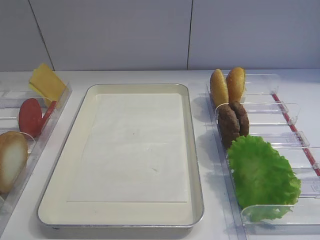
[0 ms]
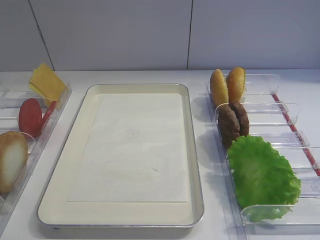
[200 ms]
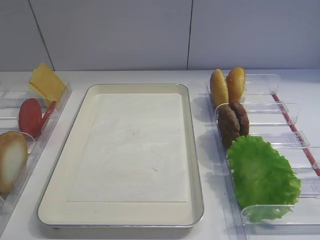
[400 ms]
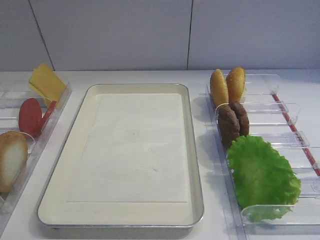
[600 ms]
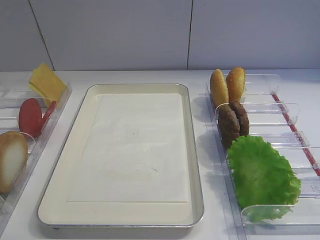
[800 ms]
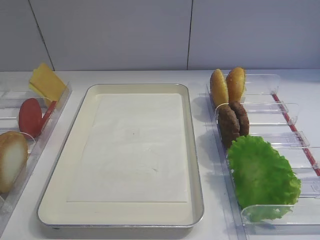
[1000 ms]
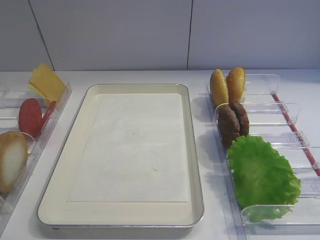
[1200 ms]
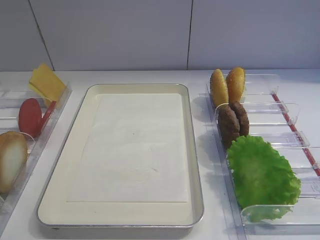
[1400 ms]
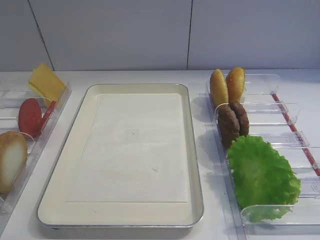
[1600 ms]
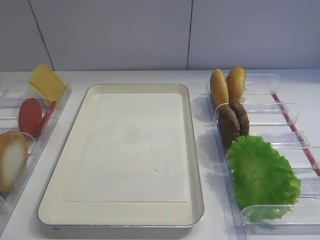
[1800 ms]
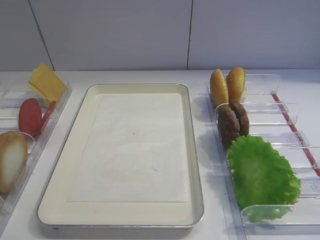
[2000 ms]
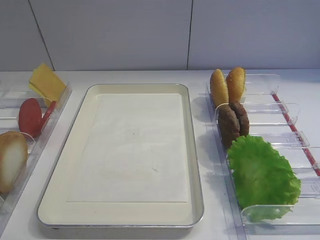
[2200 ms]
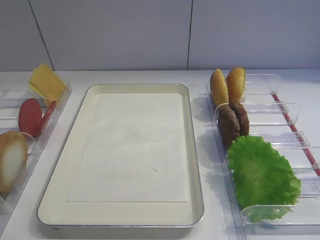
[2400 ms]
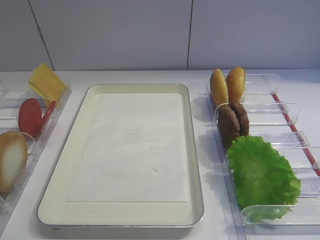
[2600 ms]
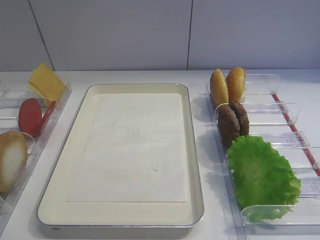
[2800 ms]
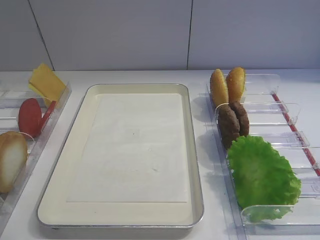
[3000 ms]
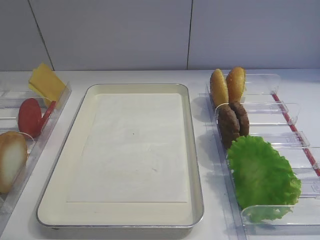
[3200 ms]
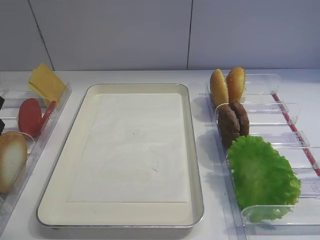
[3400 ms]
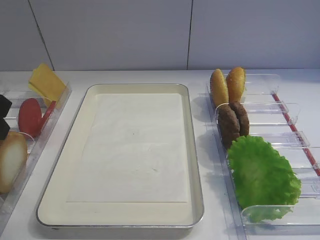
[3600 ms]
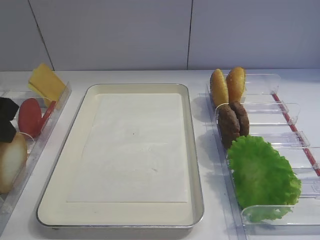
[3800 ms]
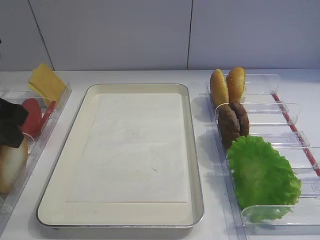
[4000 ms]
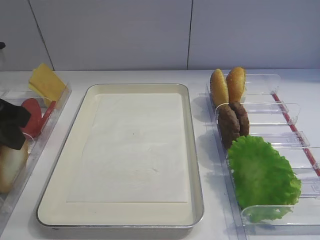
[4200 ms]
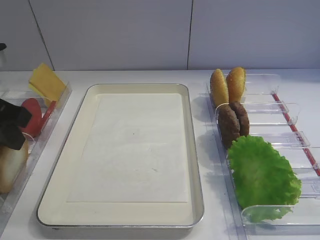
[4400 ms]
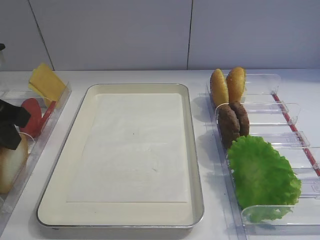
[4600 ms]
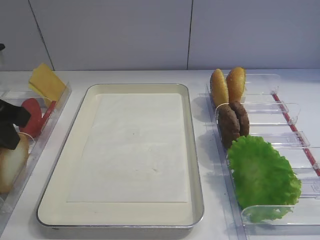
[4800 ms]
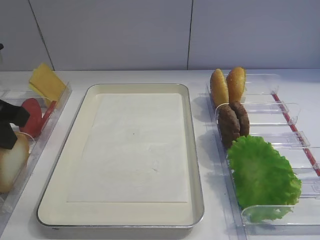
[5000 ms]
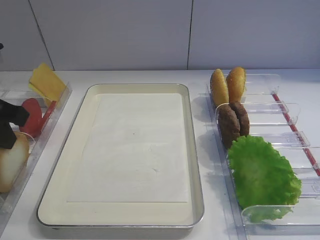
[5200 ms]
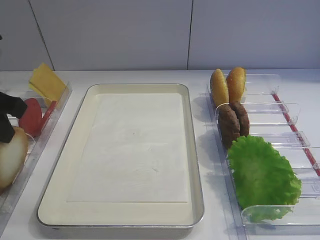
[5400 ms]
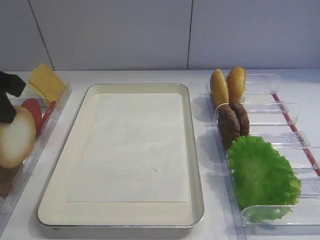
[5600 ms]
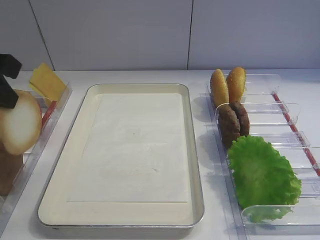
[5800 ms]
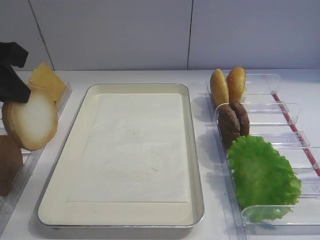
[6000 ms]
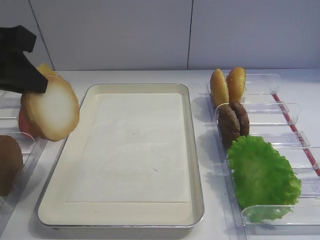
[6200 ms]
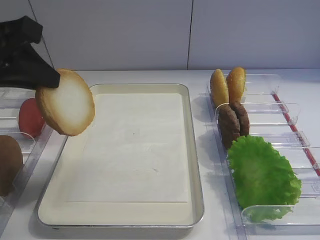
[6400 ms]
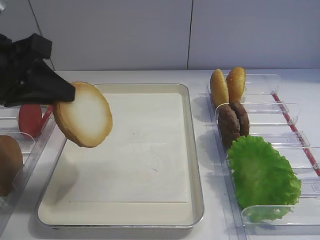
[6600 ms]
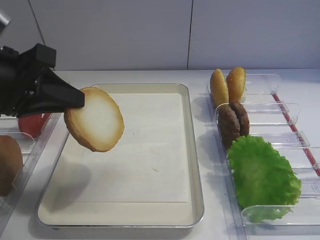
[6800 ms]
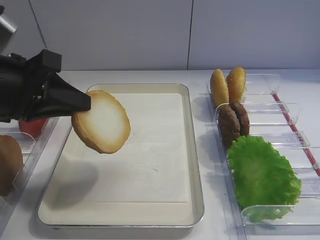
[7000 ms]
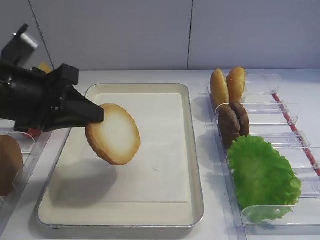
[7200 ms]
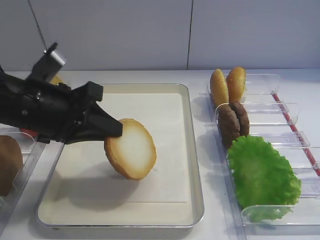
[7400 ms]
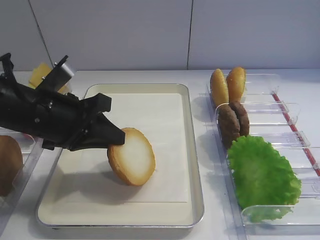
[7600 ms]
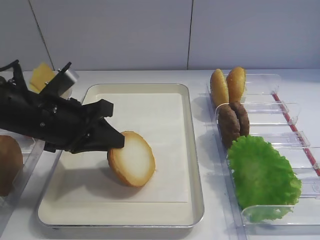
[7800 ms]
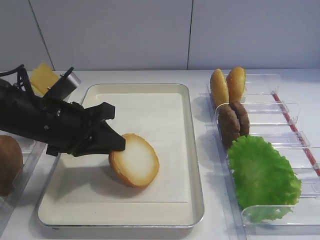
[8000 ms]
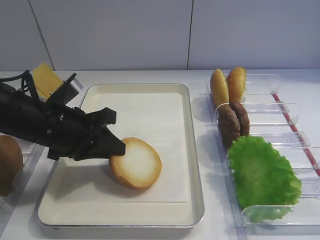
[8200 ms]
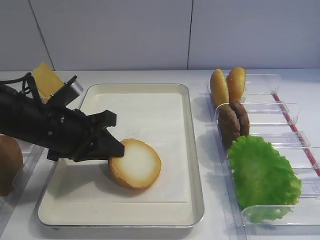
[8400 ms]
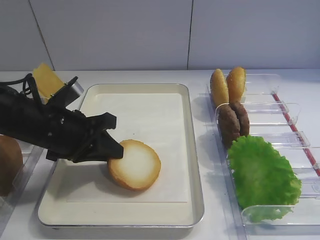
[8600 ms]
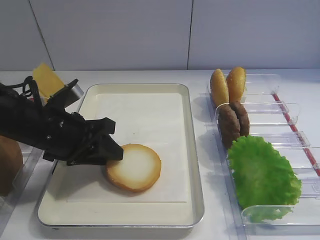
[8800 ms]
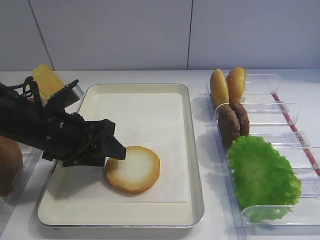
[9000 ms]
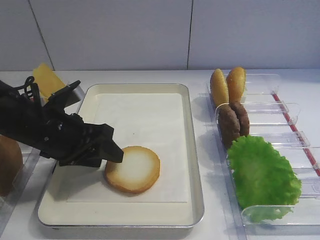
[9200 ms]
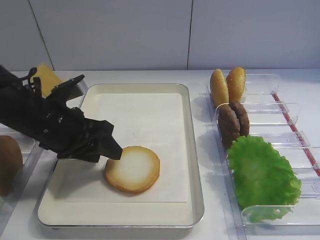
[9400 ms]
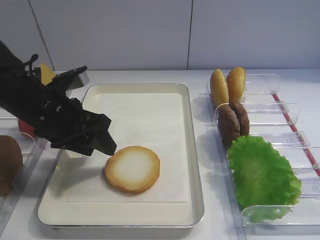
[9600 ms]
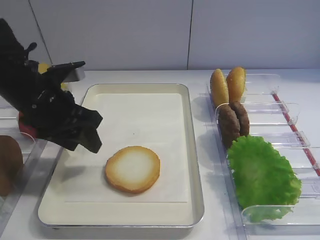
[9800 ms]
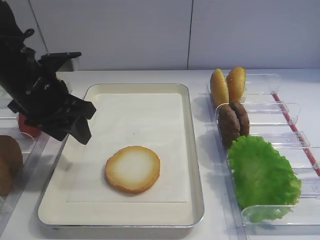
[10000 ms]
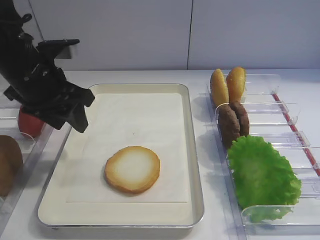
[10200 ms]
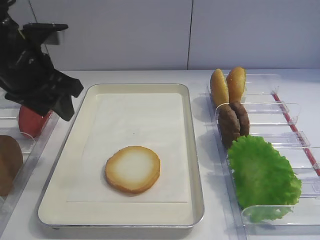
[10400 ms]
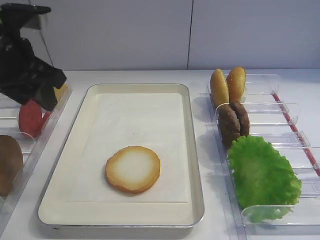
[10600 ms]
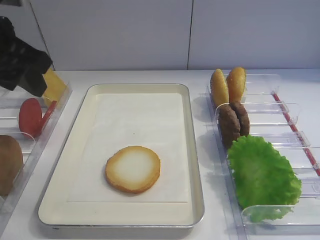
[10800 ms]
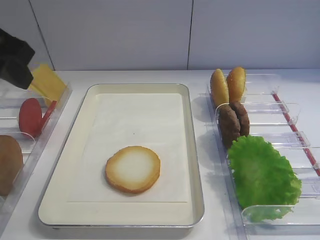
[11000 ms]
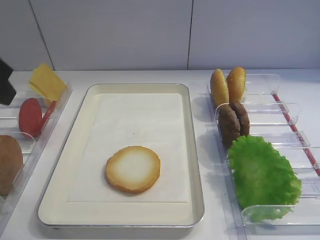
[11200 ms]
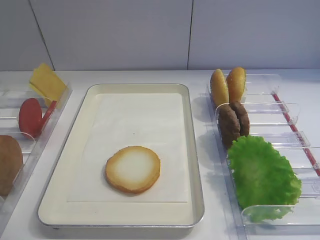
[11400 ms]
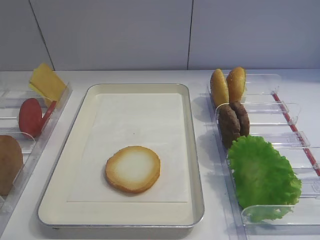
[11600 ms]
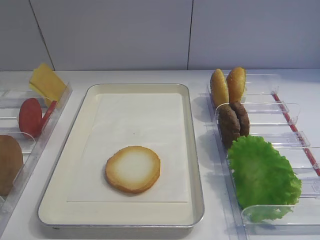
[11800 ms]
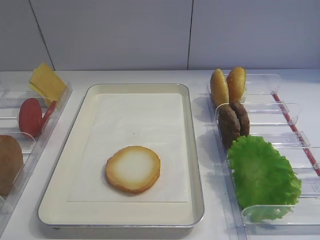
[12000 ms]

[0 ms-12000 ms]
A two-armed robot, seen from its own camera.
Step, 0 ms to 5600 ms: Pick up the bread slice with the left gripper.
Step, 5800 ms to 10200 ms: Place the bread slice on the tray with the left gripper.
0 ms to 1600 ms: The two grippers keep their place.
3000 ms to 4400 ms: The left gripper changes place by some 5 cm.
4400 ms to 6000 ms: The left gripper travels upward by some 5 cm.
6000 ms to 7600 ms: The left gripper goes approximately 15 cm downward and to the right.
7600 ms to 9000 ms: The left gripper opens its fingers.
9000 ms to 10400 ms: The left gripper is displaced upward by about 15 cm.
10400 ms to 12000 ms: The left gripper moves backward, roughly 25 cm.

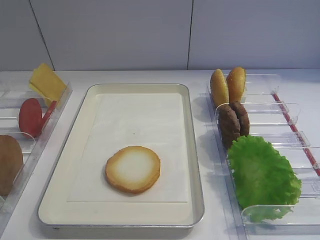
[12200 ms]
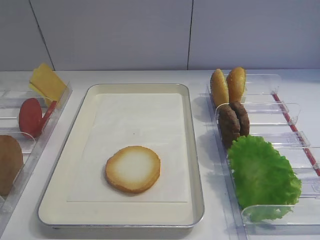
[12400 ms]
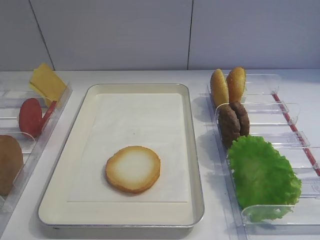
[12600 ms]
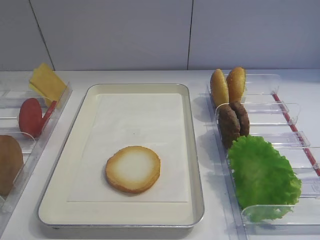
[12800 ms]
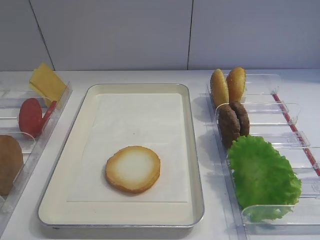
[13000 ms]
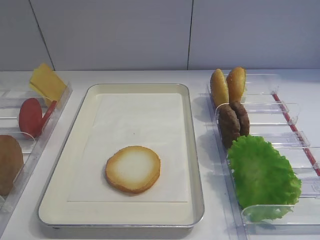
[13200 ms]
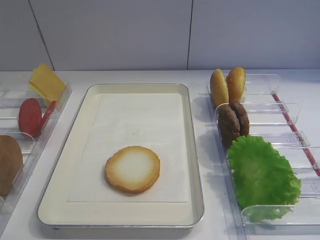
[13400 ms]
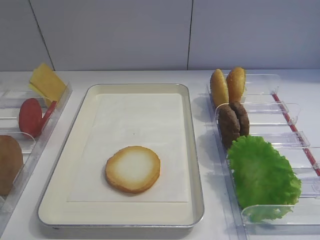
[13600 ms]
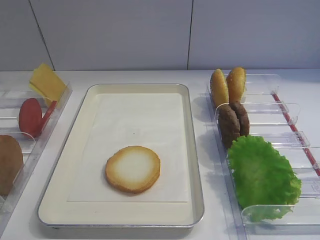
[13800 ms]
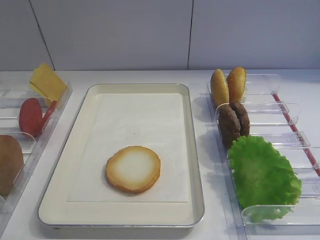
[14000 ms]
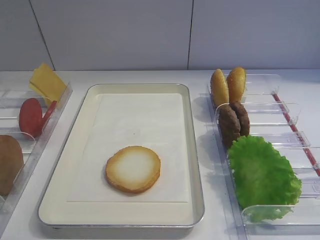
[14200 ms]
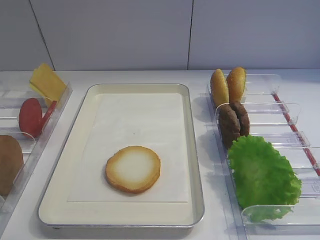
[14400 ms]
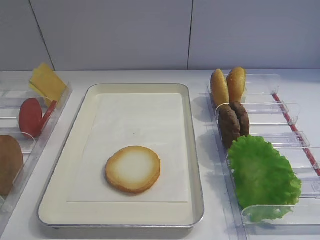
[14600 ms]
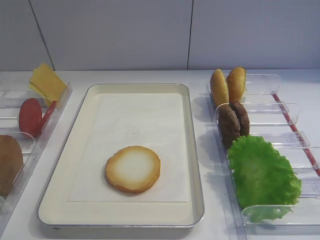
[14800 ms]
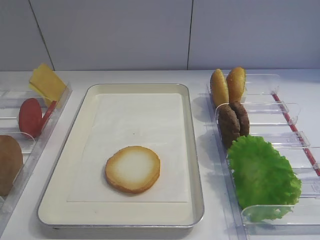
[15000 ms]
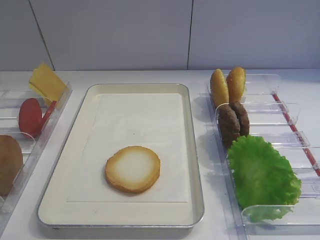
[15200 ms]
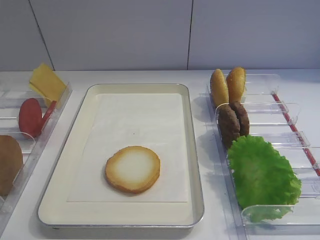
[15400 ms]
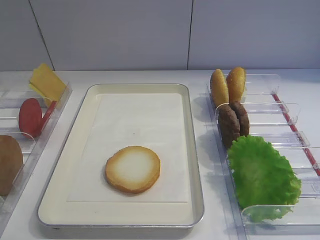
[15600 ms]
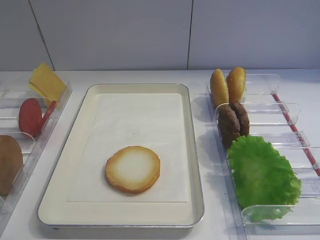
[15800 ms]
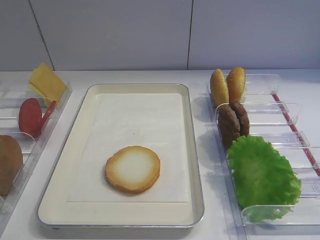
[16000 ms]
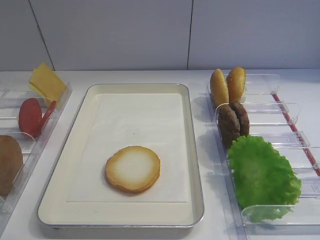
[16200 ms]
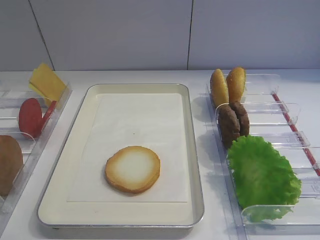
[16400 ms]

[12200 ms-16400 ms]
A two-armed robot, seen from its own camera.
15000 ms to 16400 ms: Both grippers stay put.

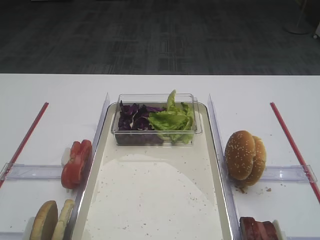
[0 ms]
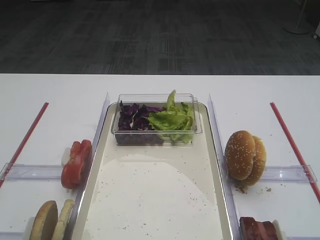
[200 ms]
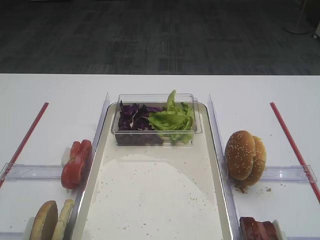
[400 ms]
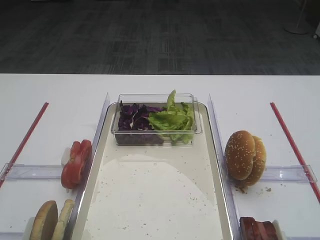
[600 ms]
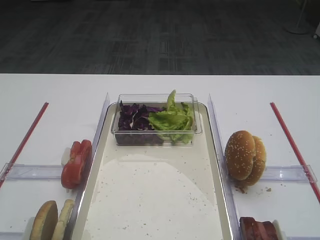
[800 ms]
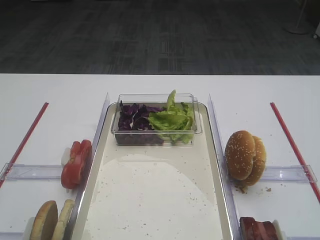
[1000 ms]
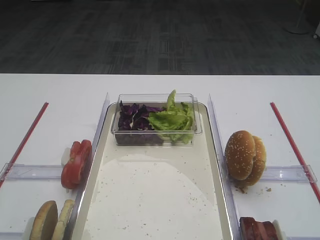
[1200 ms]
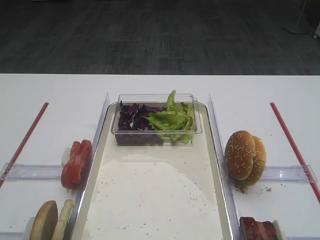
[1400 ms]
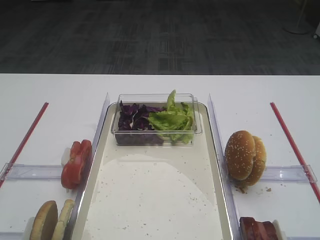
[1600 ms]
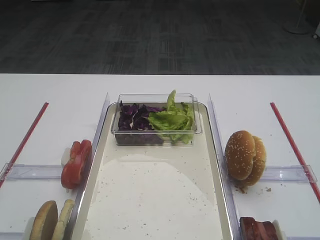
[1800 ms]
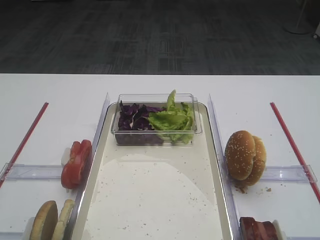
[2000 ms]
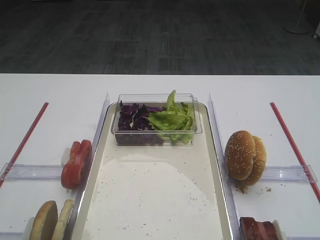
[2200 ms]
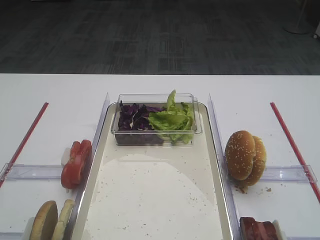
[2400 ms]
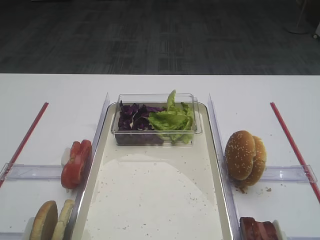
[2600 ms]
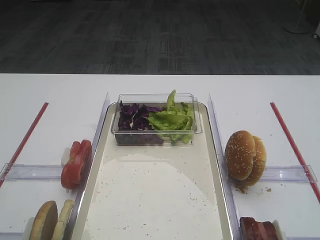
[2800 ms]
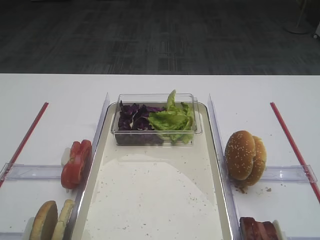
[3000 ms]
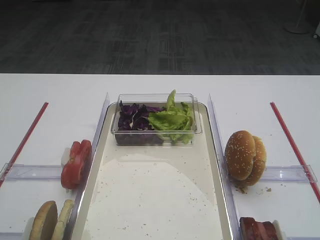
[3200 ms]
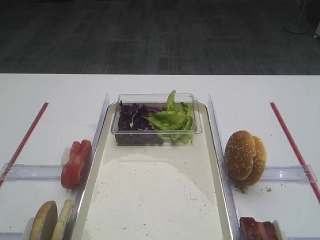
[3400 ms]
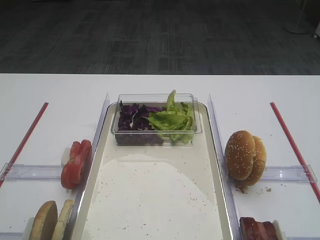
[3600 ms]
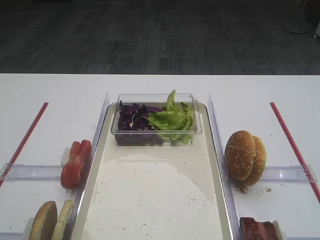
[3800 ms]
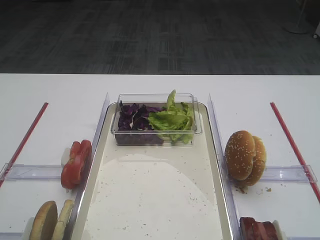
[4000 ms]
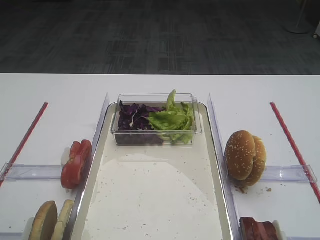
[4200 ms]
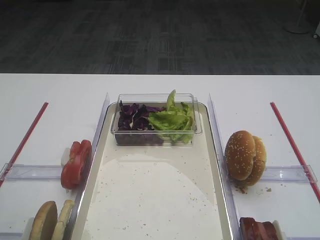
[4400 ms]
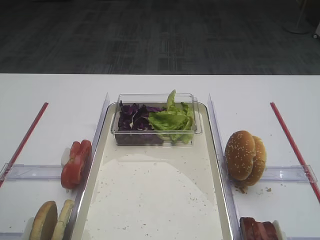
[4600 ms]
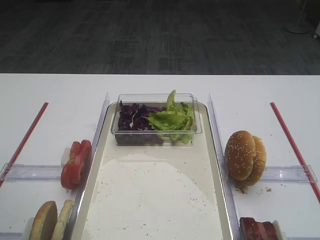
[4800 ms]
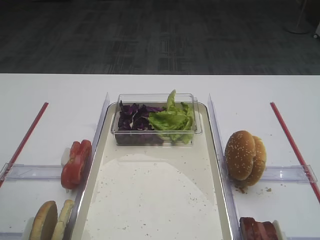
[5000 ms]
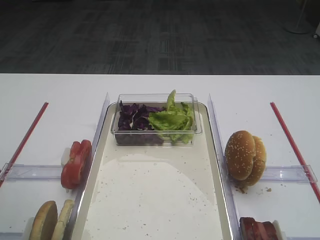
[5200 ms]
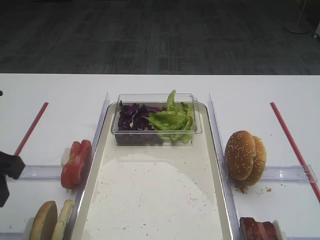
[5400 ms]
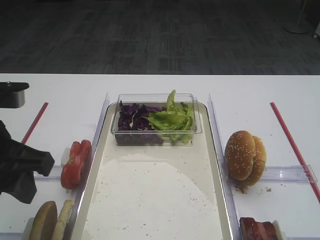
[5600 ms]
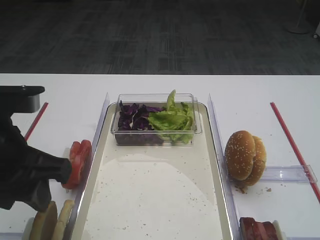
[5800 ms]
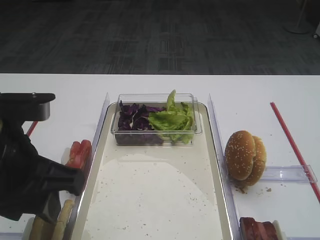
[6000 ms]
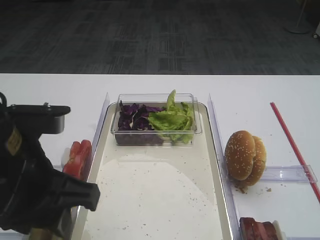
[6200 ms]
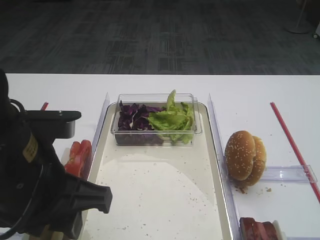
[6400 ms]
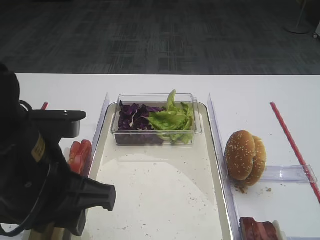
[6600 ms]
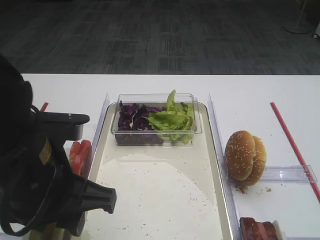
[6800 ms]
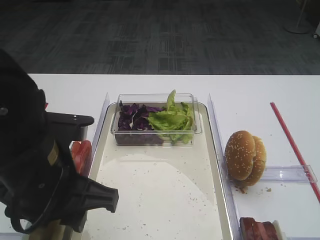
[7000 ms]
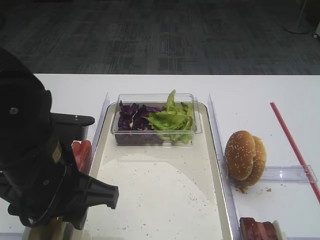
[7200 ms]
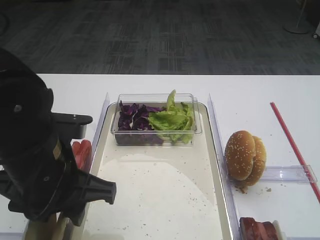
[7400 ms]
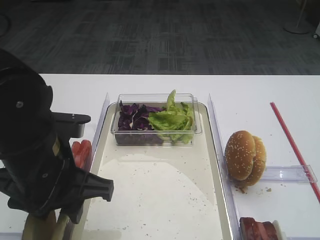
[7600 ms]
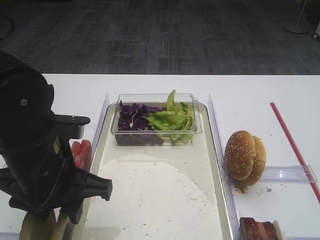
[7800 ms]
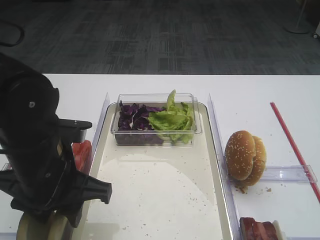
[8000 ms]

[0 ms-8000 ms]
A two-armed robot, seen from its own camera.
4800 ms to 6400 ms: The left gripper moves to the right, roughly 15 cm.
6400 ms to 8000 ms: The left gripper goes about 5 cm downward.
